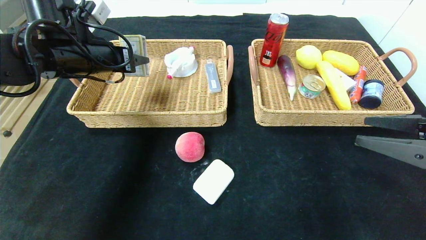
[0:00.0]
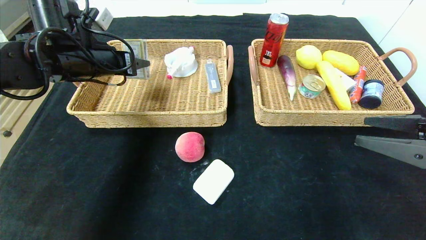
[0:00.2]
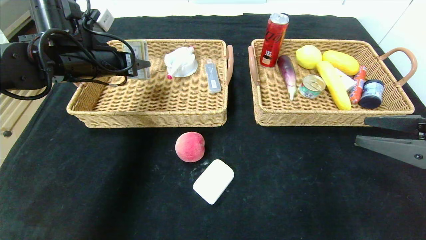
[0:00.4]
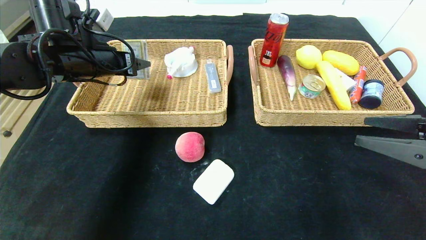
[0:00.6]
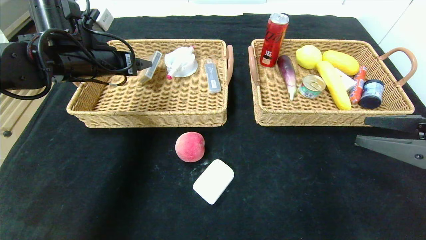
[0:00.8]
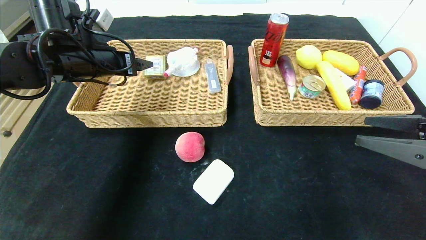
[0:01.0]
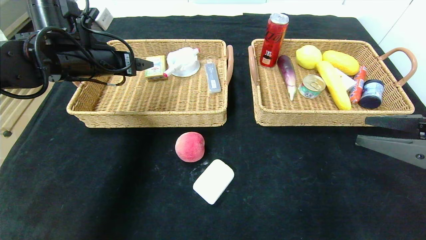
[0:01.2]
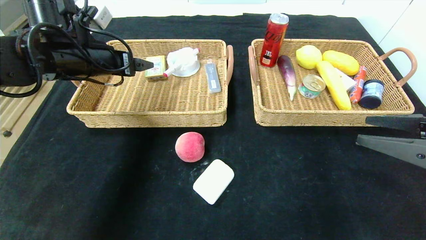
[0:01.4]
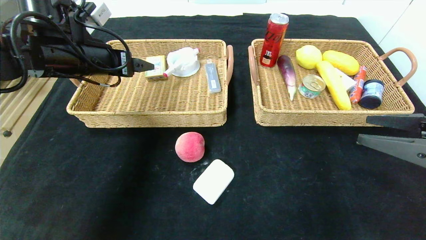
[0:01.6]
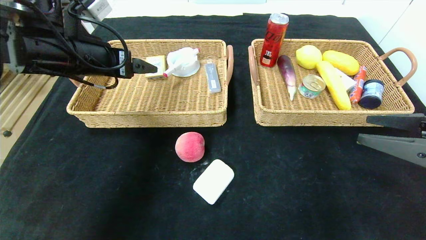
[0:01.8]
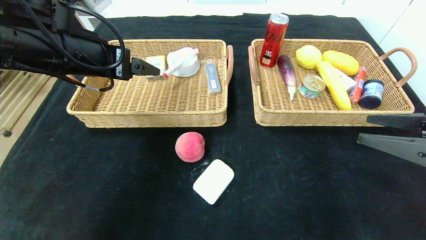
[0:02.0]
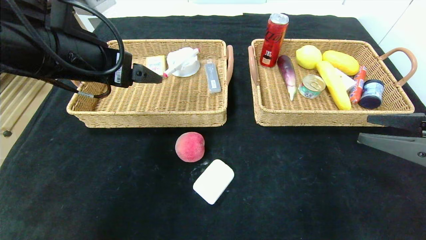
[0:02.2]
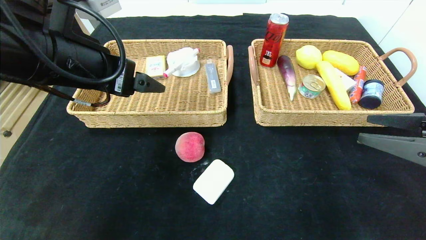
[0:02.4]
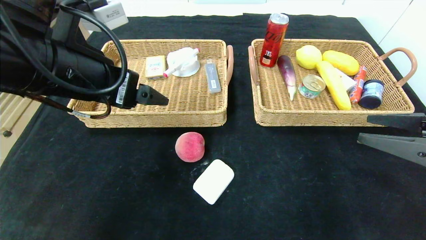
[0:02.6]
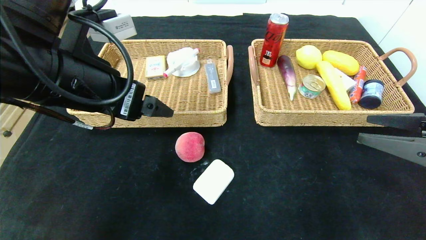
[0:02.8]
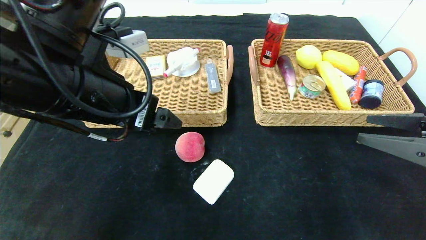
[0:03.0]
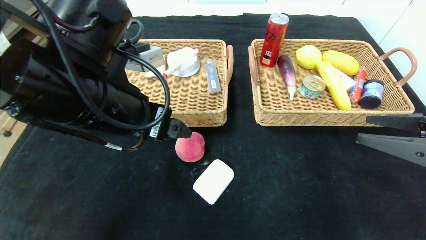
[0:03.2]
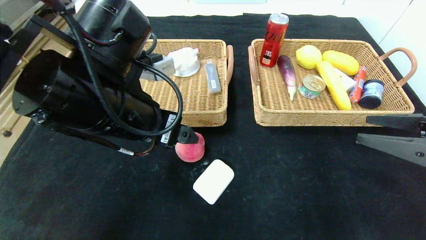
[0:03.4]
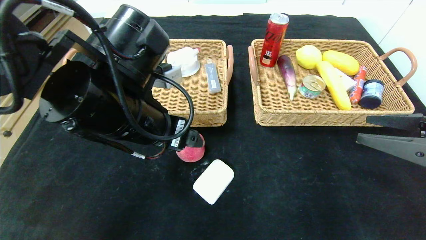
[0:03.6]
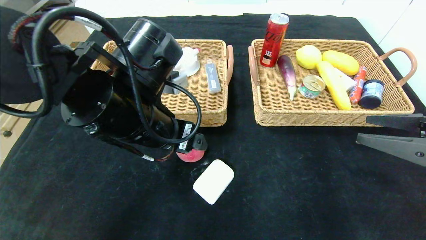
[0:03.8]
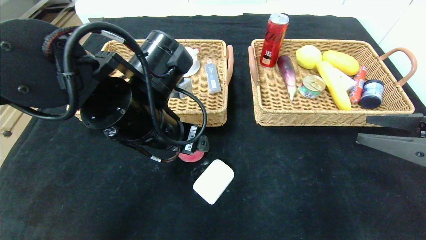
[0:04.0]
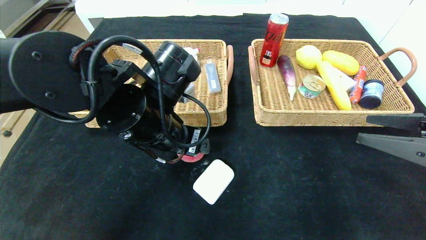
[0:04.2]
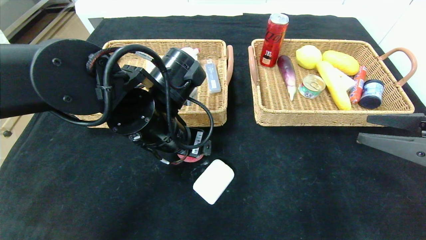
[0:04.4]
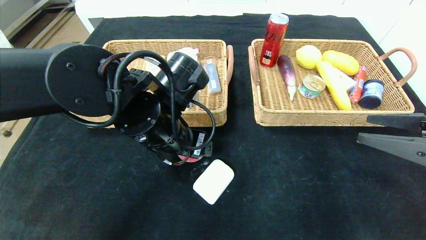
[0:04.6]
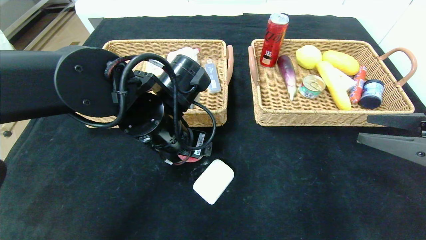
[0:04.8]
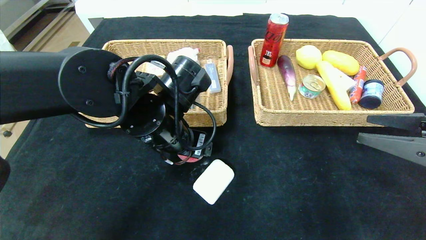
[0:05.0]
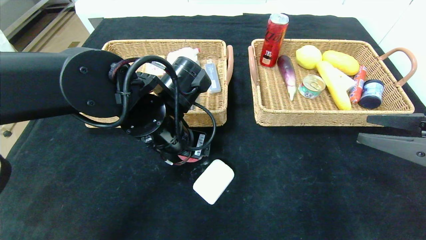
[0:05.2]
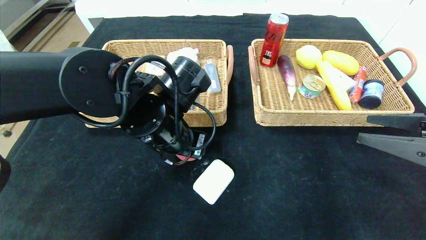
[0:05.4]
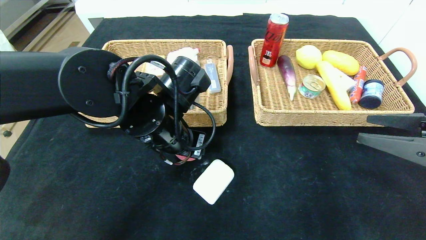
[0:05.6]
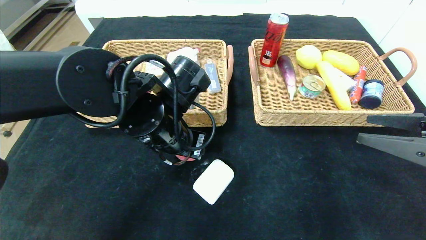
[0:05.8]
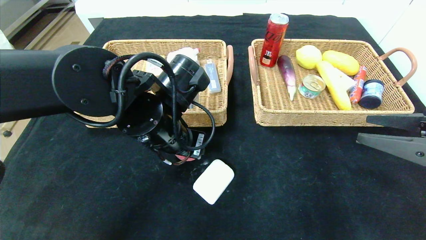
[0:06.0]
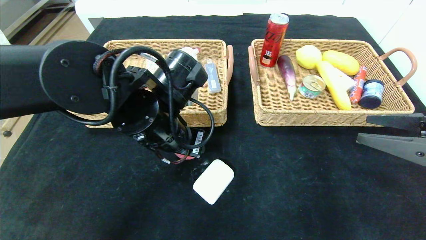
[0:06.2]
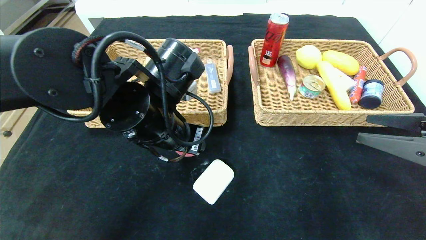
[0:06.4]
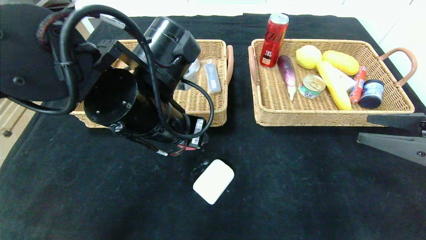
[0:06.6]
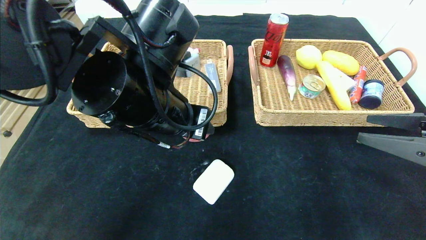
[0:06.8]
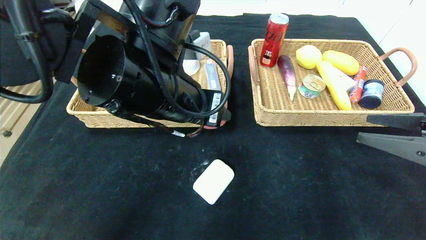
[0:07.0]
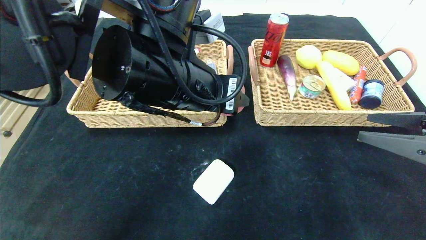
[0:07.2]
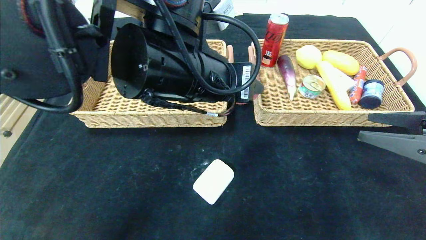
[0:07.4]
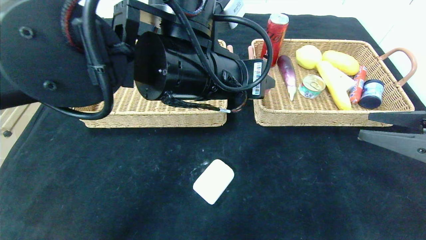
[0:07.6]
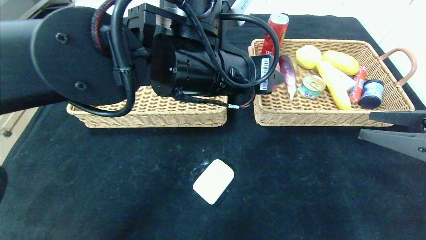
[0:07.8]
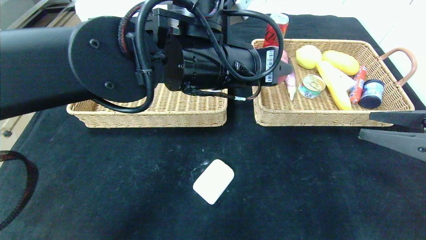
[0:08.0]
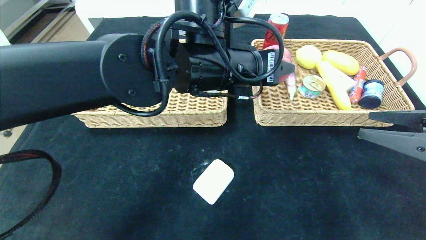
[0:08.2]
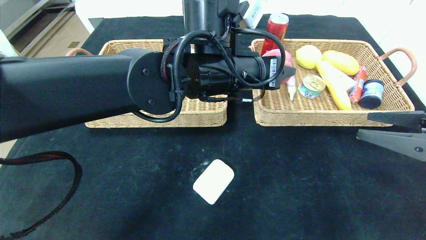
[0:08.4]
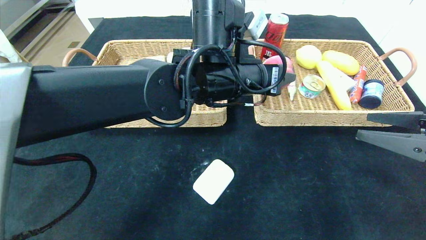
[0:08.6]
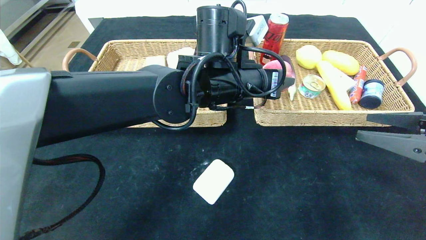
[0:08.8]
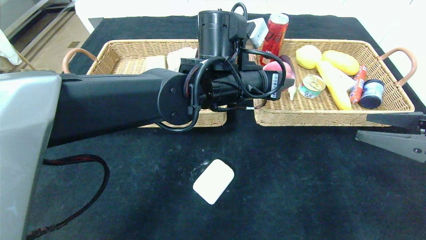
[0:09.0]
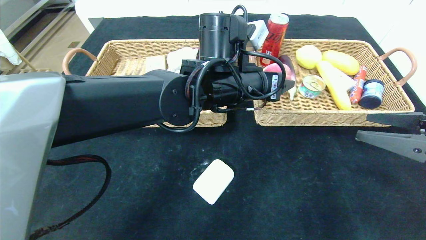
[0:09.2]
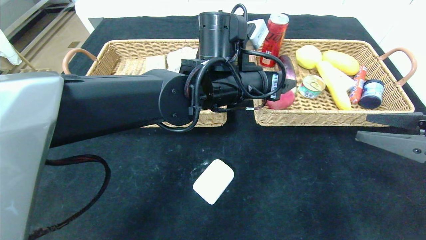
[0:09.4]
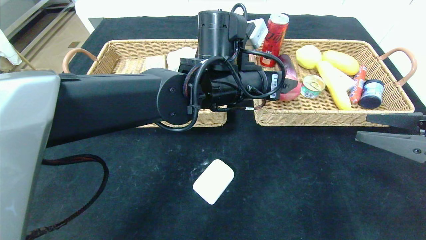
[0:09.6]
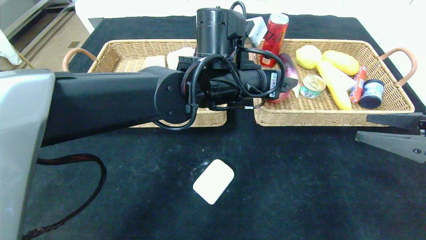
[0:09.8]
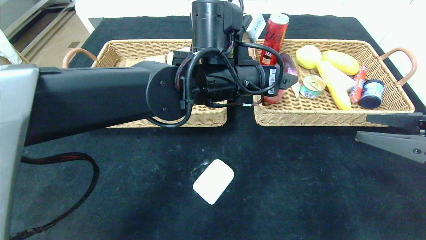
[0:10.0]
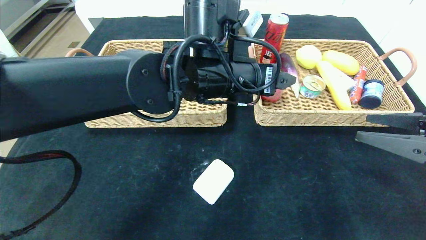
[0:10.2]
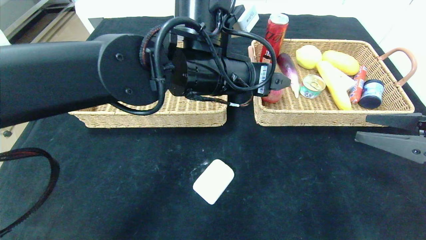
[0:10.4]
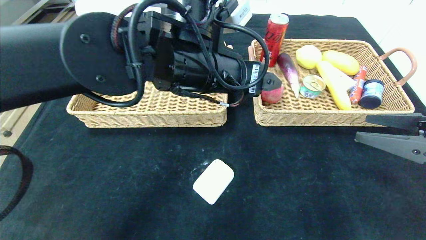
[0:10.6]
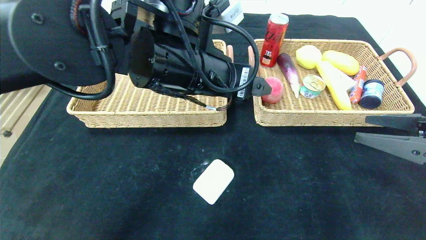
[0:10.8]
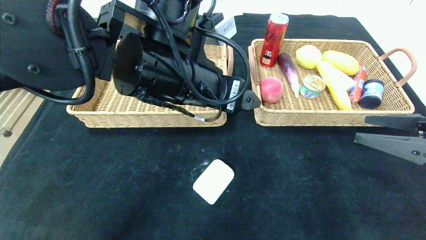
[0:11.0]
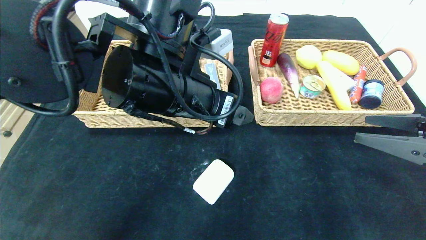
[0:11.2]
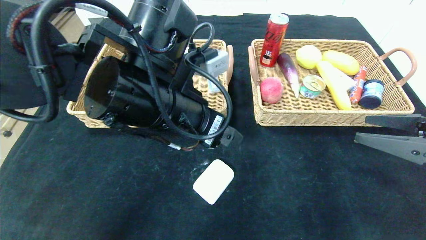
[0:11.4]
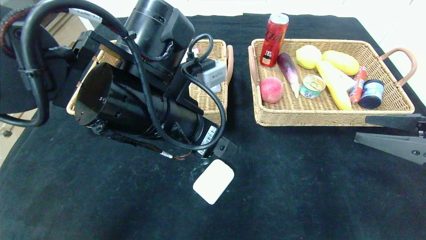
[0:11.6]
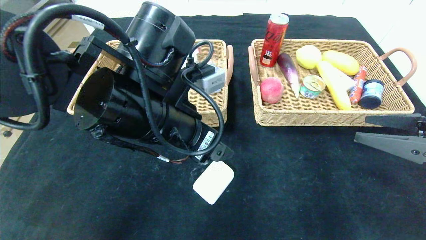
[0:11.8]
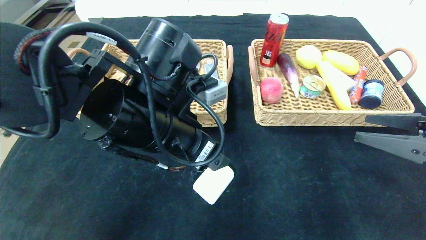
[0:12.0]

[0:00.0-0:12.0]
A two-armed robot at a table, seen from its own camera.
0:00.0 to 0:01.6: The left gripper opens.
0:01.6 to 0:03.0: The left gripper travels backward and to the right by some 15 cm.
0:03.0 to 0:04.4: The left gripper heads downward and to the right, covering roughly 10 cm.
0:04.4 to 0:06.0: The left gripper closes up.
0:06.0 to 0:07.6: The left gripper moves upward and to the right, about 10 cm.
0:07.6 to 0:09.0: The left gripper is displaced forward by approximately 5 cm.
0:09.0 to 0:10.4: The left gripper changes place by some 5 cm, and opens its fingers.
0:10.4 to 0:12.0: The left gripper goes about 10 cm backward and to the left.

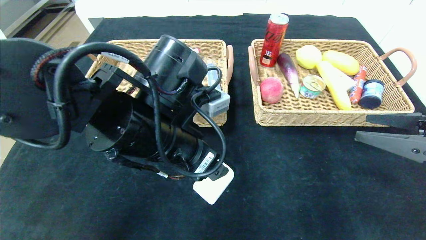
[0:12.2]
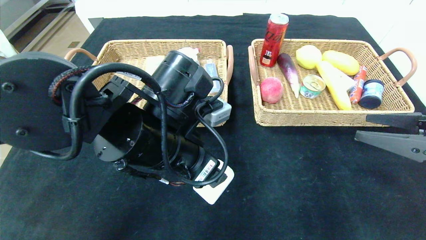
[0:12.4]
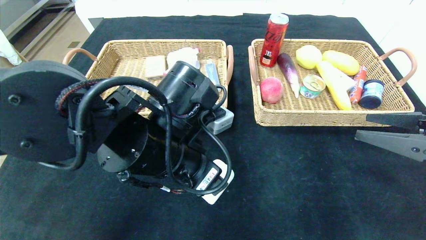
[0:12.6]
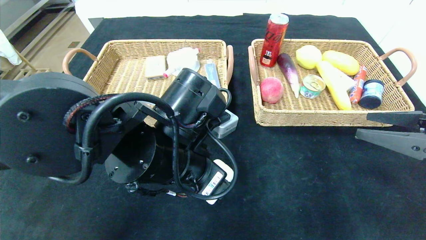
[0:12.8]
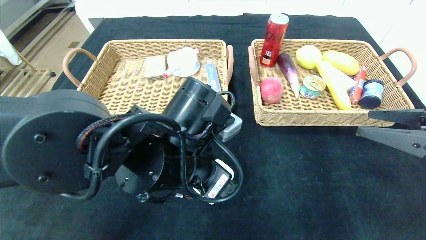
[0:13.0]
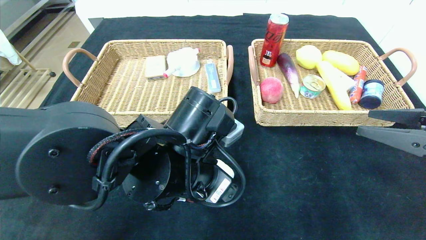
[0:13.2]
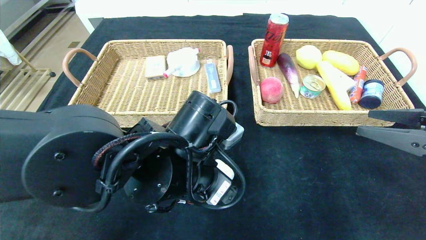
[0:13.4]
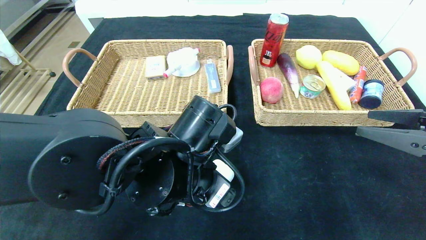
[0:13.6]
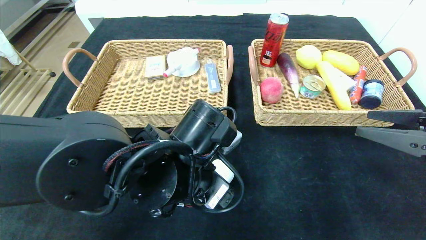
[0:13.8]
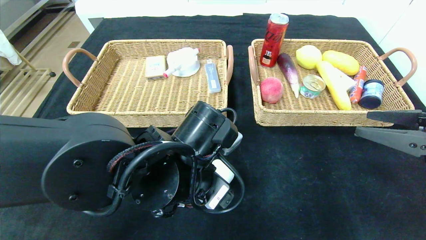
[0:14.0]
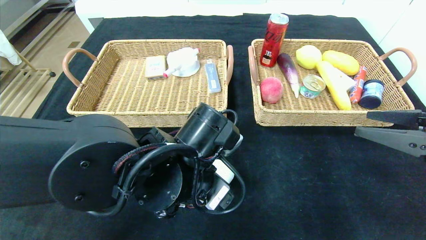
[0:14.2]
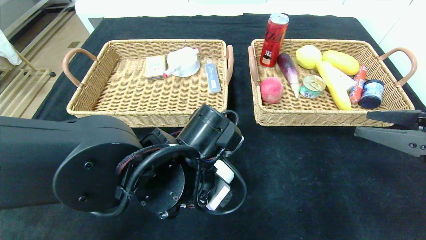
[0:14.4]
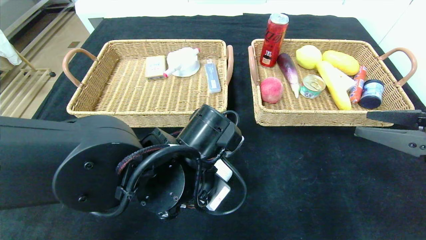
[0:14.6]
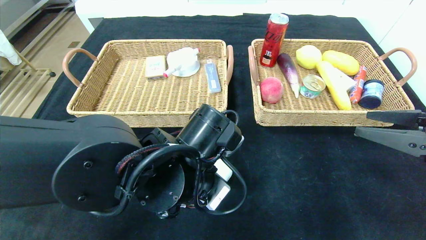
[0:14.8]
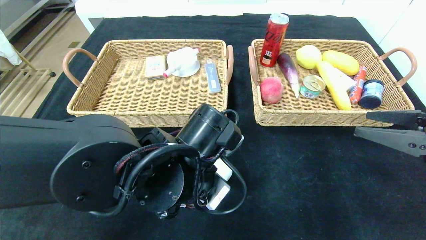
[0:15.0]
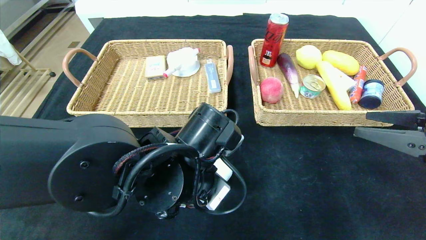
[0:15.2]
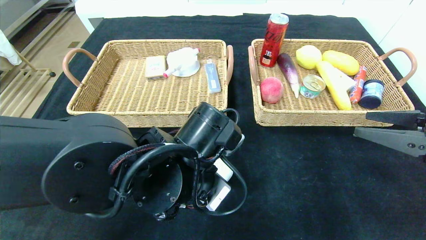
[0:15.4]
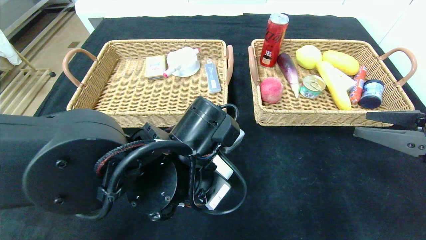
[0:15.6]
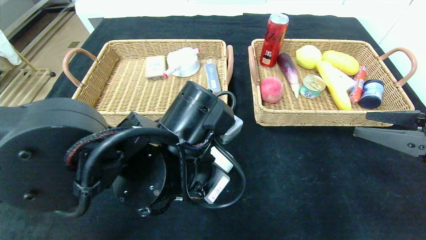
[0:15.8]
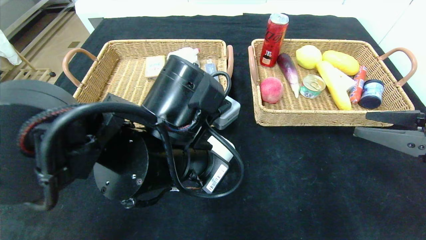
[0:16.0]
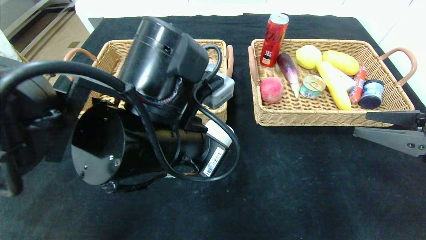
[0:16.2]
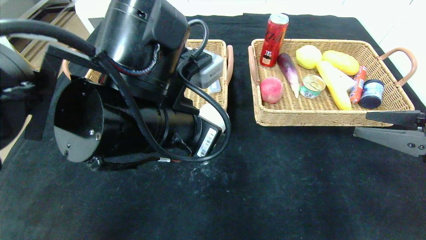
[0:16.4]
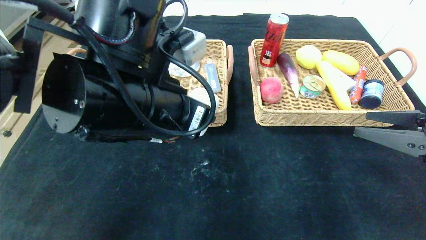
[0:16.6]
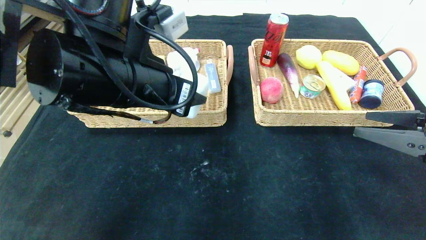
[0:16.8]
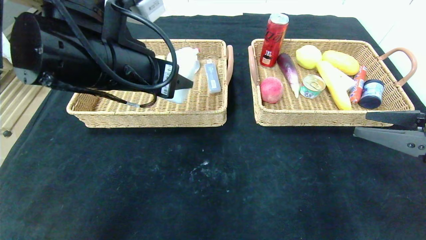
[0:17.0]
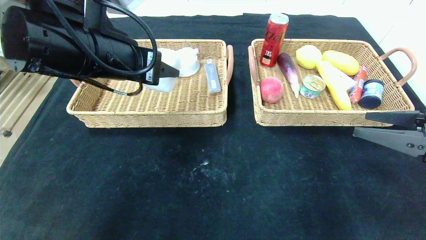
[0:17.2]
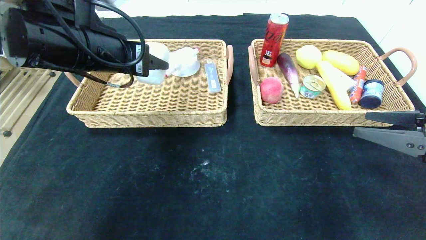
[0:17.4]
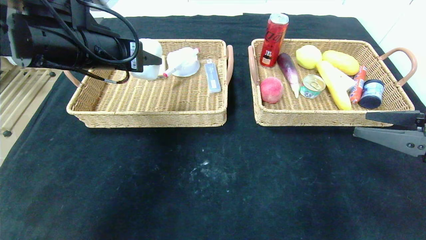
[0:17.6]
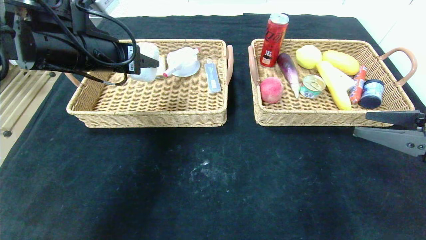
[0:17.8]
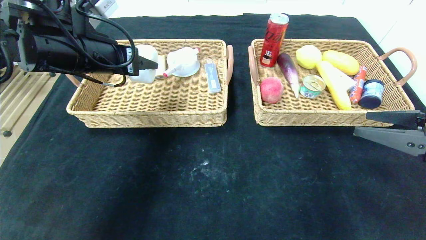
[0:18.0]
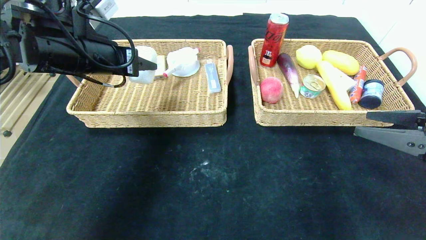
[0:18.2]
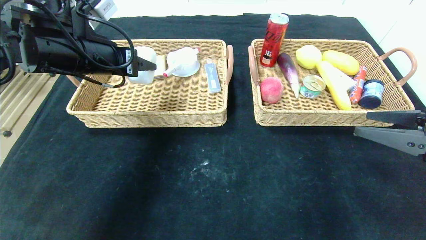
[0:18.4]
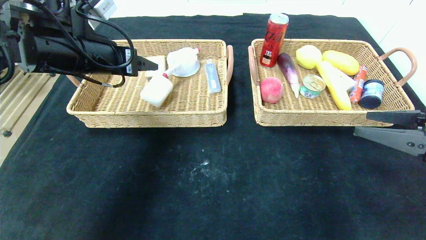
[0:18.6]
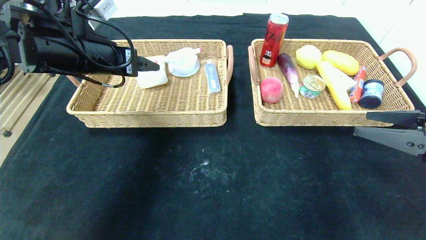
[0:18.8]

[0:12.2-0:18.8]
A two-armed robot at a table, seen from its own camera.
Step, 0:12.2 to 0:18.6: Grasp the white eraser and put it in the left basket.
0:12.2 to 0:13.8: The left gripper moves downward, roughly 5 cm.
0:13.8 to 0:15.4: The left gripper closes its fingers.
0:15.4 to 0:17.2: The left gripper shifts approximately 20 cm upward, to the left and forward.
0:17.2 to 0:18.8: The left gripper goes roughly 10 cm to the left and forward, and opens its fingers.
